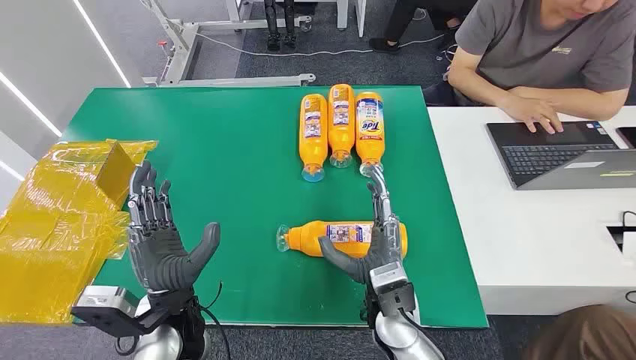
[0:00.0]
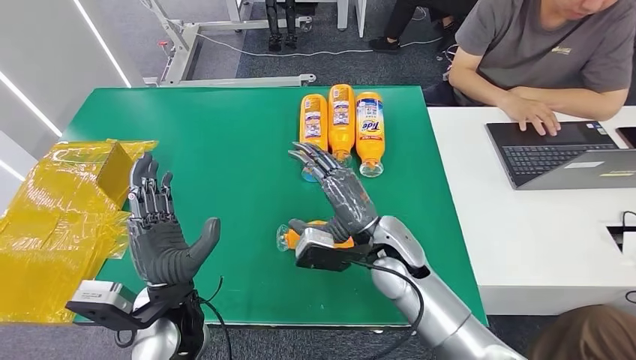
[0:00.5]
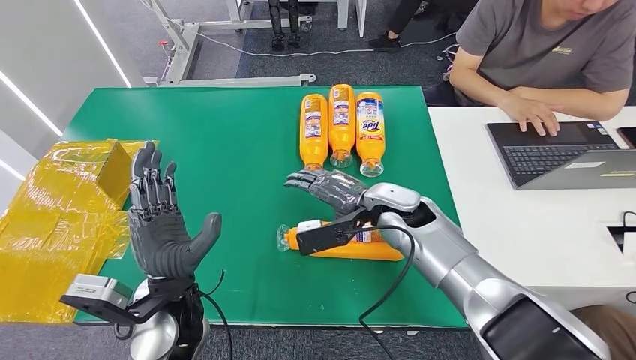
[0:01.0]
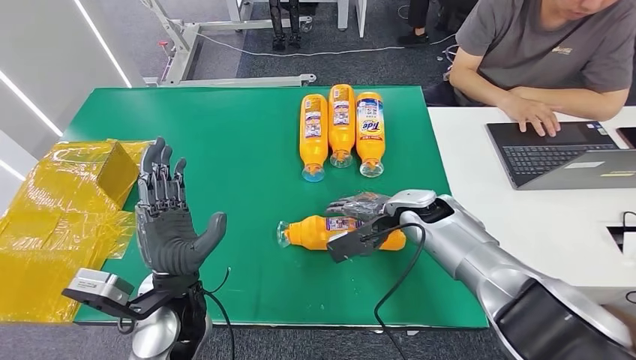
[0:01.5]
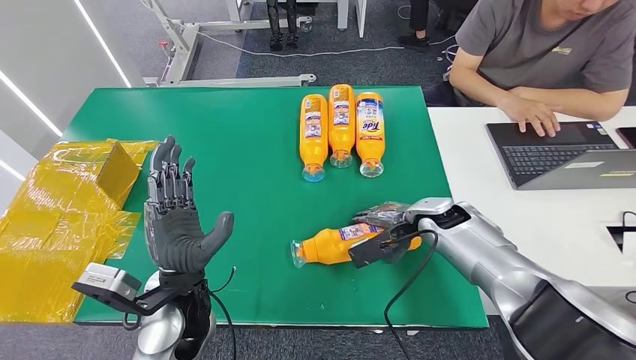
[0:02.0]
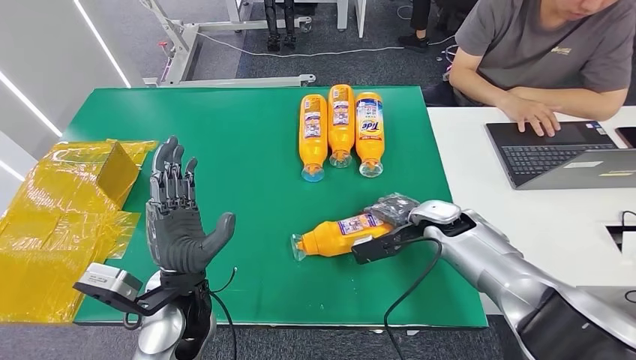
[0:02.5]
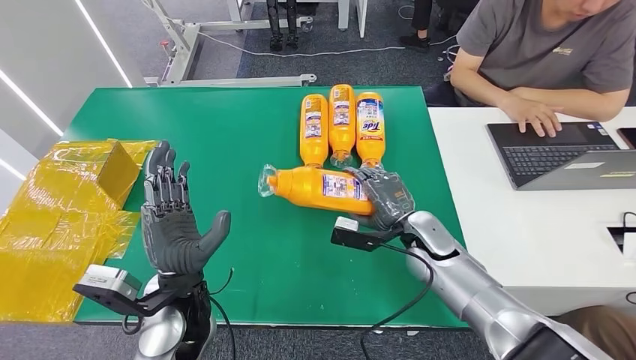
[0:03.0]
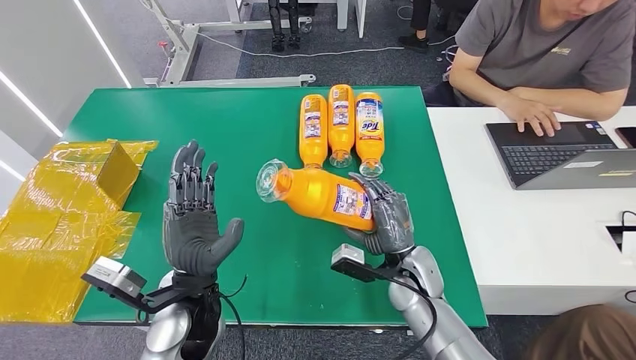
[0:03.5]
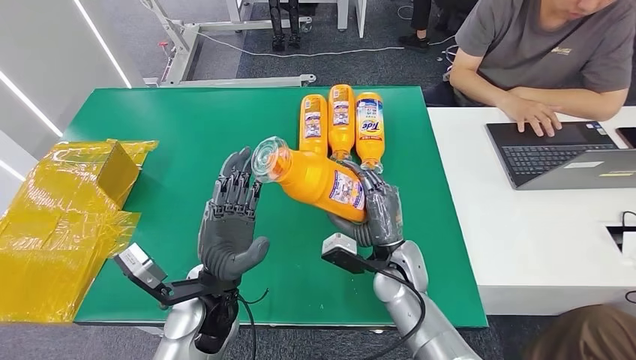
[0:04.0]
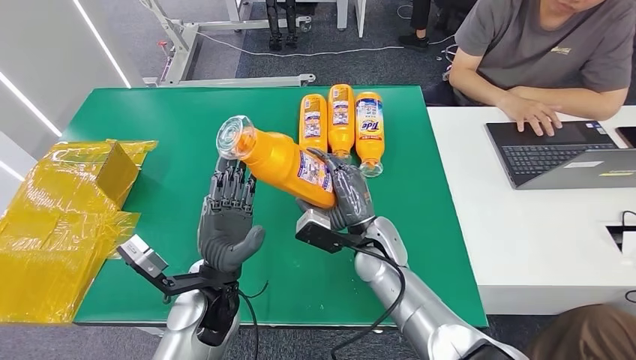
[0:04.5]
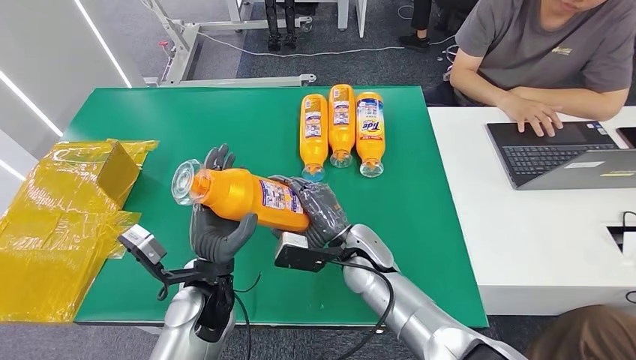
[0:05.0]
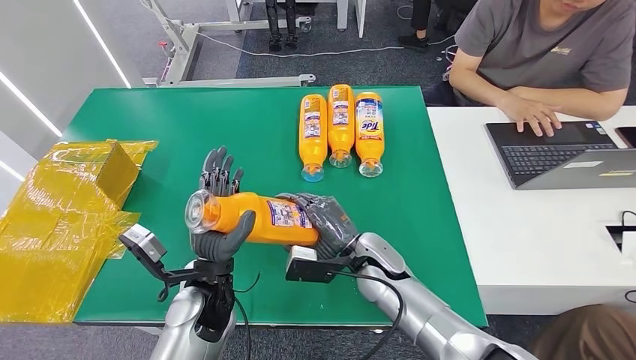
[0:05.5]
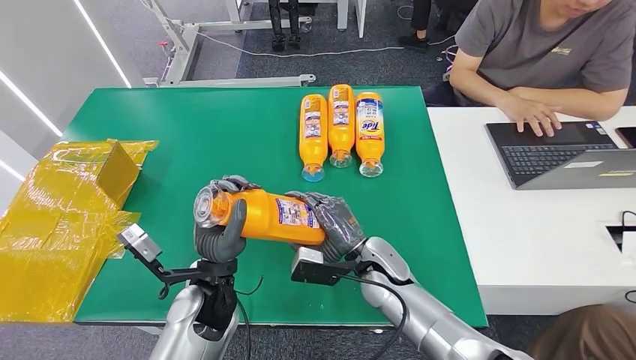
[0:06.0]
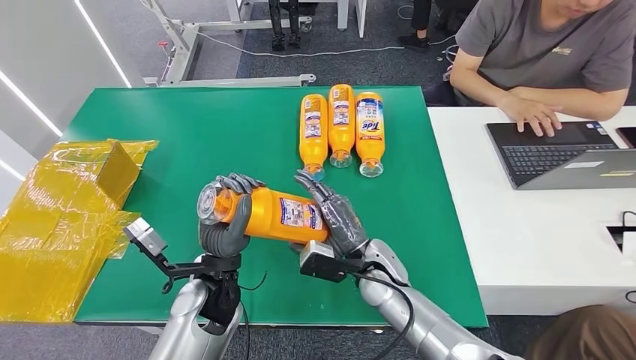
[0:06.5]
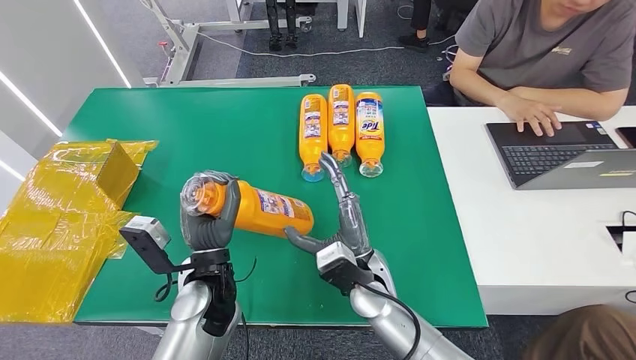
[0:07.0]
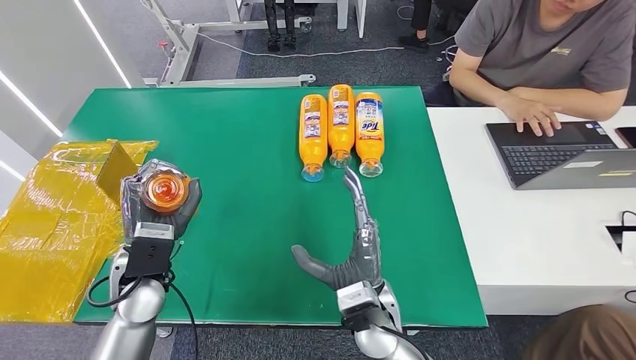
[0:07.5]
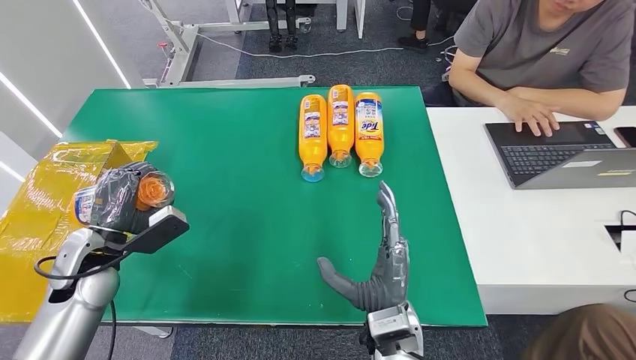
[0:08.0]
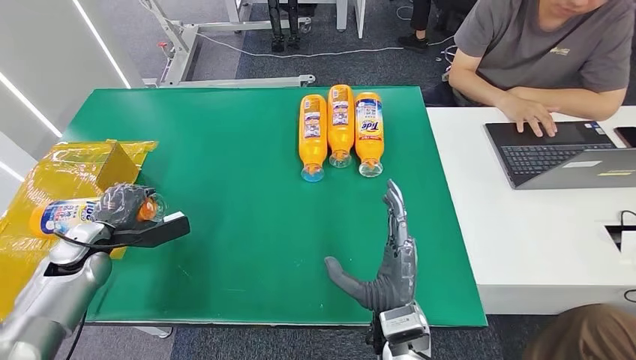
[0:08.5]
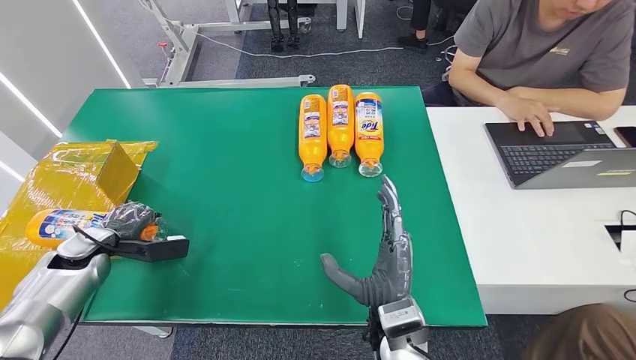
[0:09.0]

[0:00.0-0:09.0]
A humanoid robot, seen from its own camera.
Step, 0:00.0 to 0:05.5: Pick up the bottle from the table.
0:04.5 to 0:07.0: The right hand is displaced backward by approximately 5 cm.
0:07.0 to 0:09.0: The left hand moves to the left, roughly 30 cm. Meanwhile the right hand shifts roughly 10 cm backward.

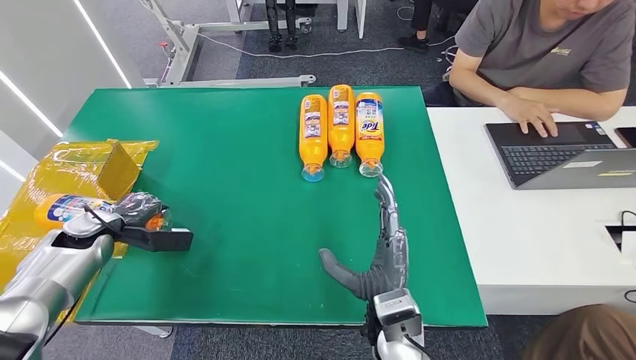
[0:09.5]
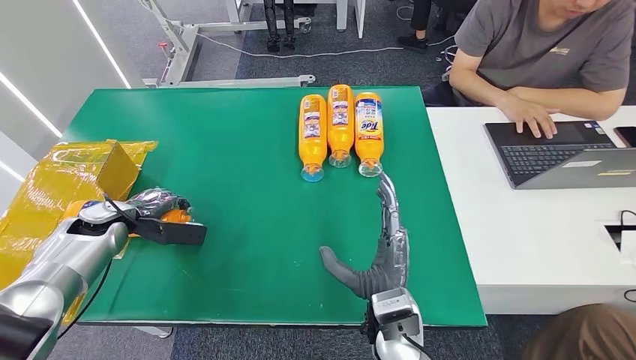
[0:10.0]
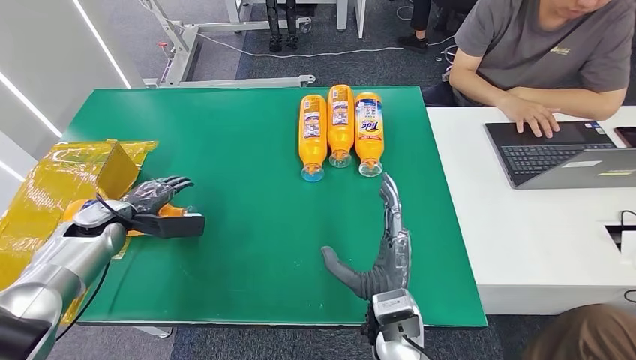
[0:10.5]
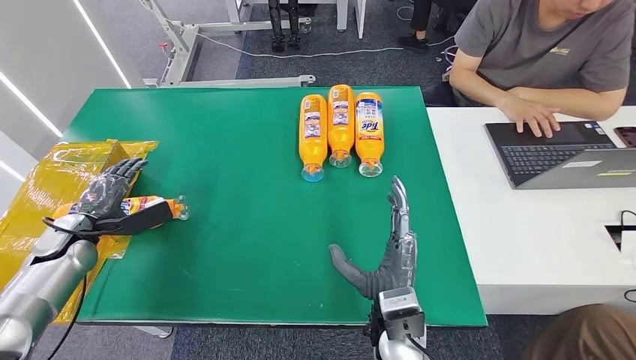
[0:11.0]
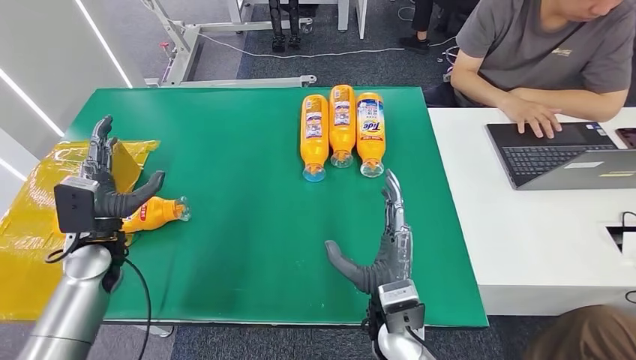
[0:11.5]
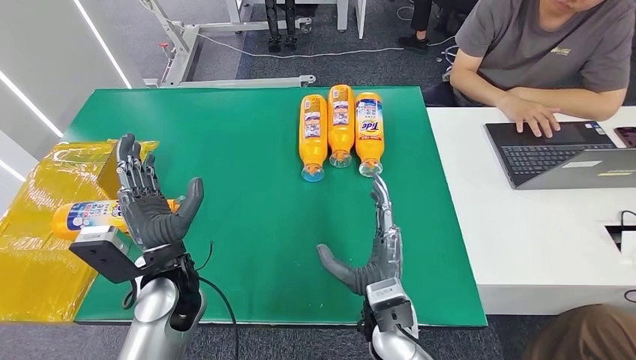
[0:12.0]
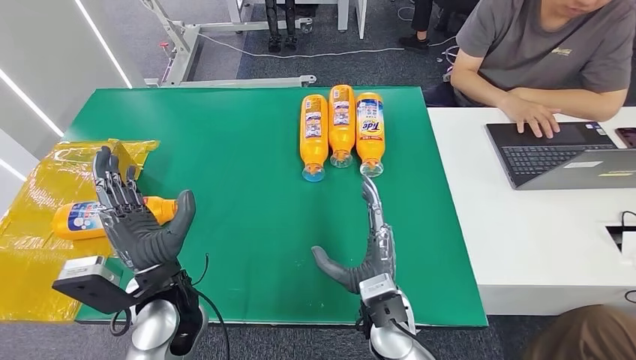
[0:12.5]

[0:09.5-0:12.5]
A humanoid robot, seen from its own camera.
Step, 0:09.5 to 0:12.5: Turn the bottle to the front side.
0:11.0 to 0:12.5: The left hand moves to the right and backward, roughly 30 cm.

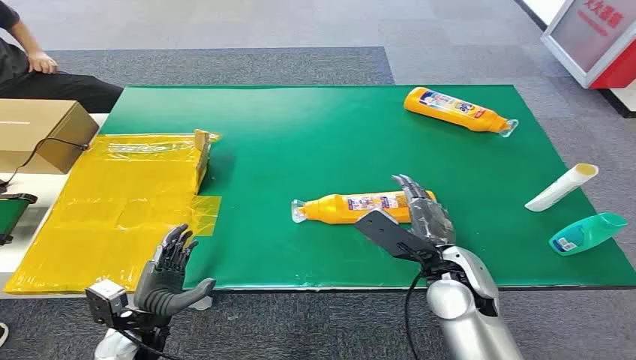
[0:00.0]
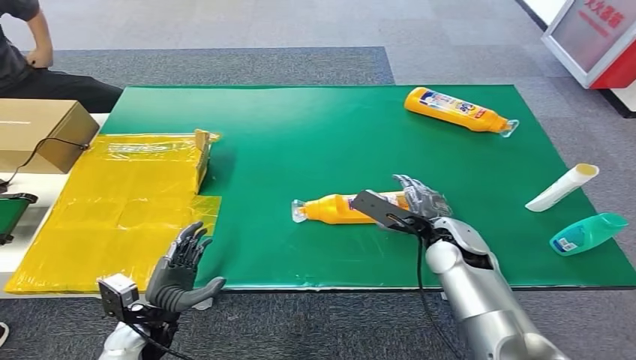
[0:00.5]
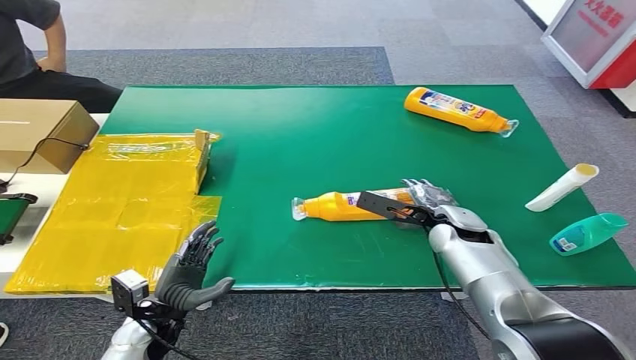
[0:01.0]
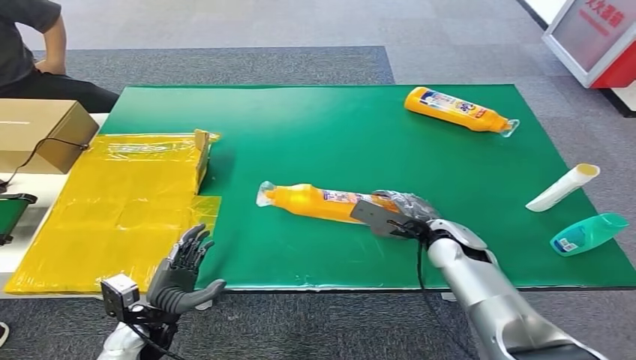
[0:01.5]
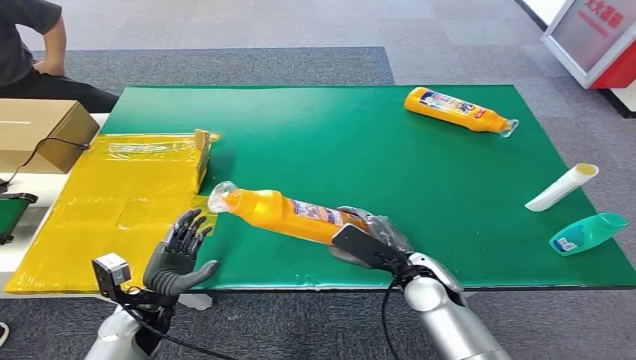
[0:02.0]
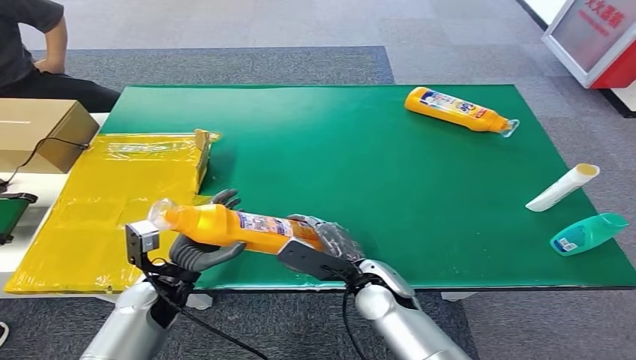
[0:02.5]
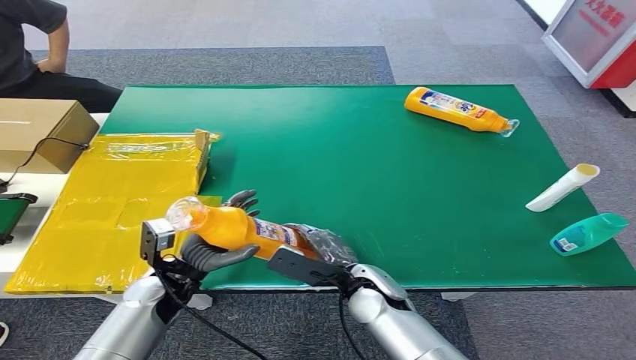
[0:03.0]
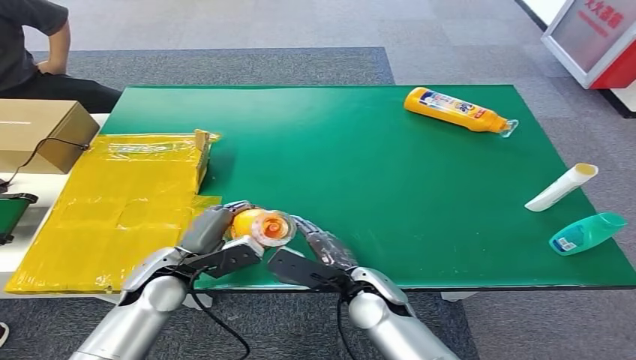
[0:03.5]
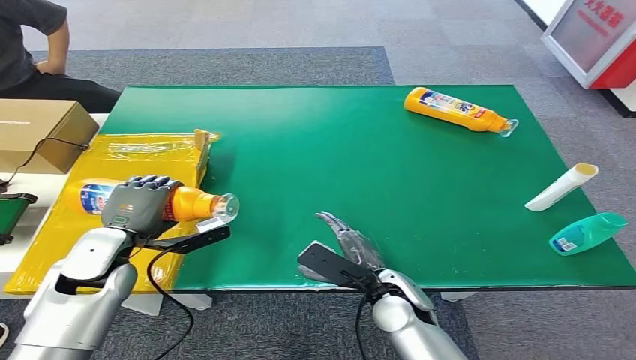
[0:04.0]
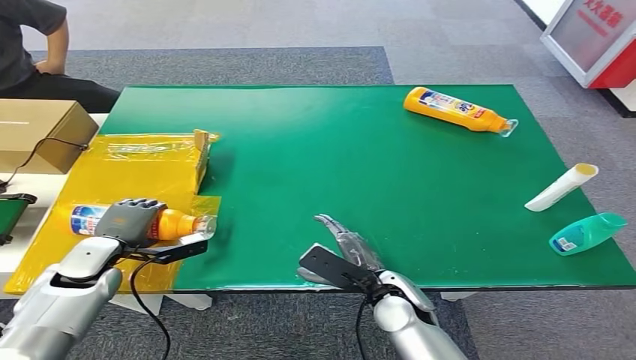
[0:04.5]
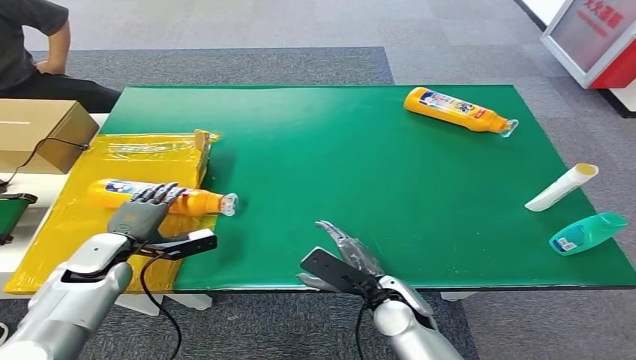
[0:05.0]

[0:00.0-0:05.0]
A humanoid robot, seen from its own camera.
Step, 0:00.0 to 0:02.0: Pick up the bottle from the table.
Step, 0:02.5 to 0:05.0: Turn the bottle to the front side.
0:02.5 to 0:05.0: The left hand goes about 10 cm to the left and forward.
